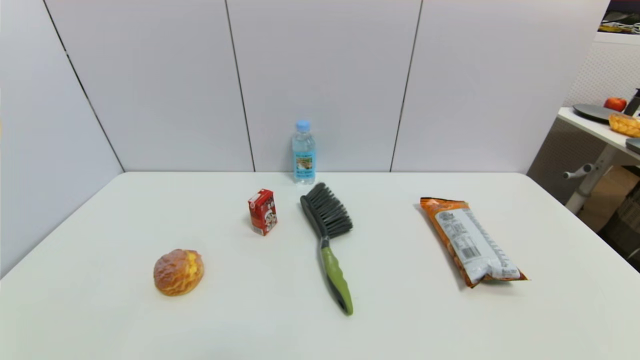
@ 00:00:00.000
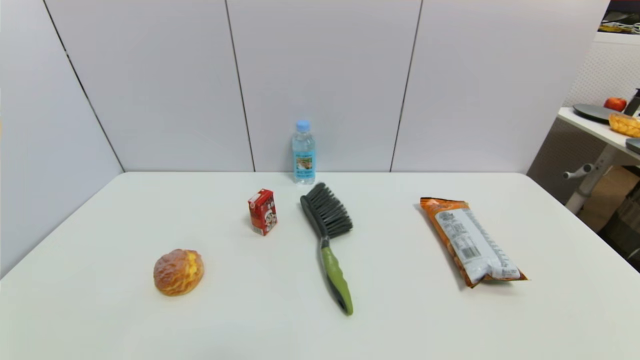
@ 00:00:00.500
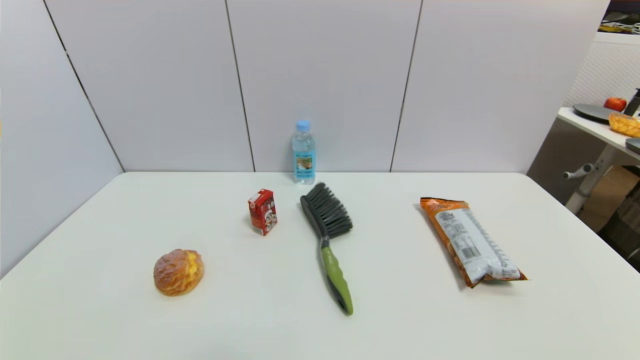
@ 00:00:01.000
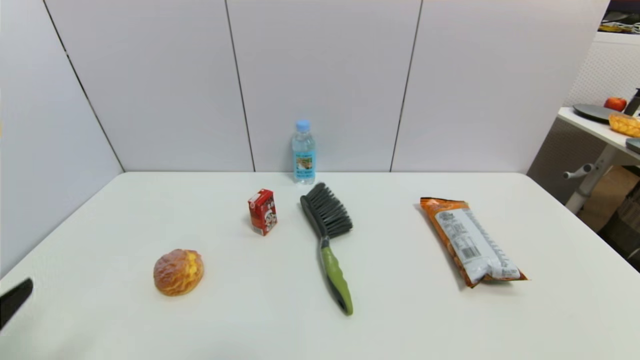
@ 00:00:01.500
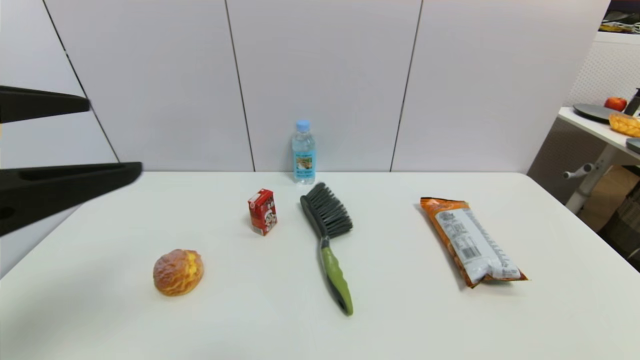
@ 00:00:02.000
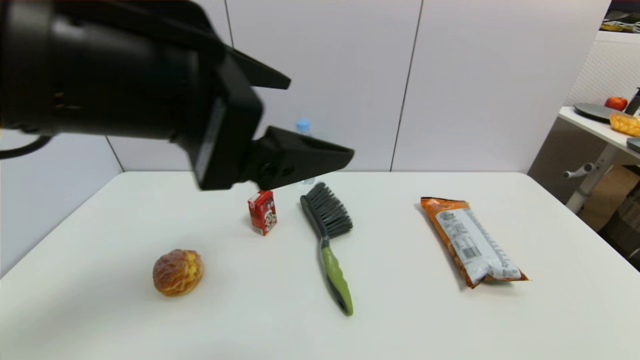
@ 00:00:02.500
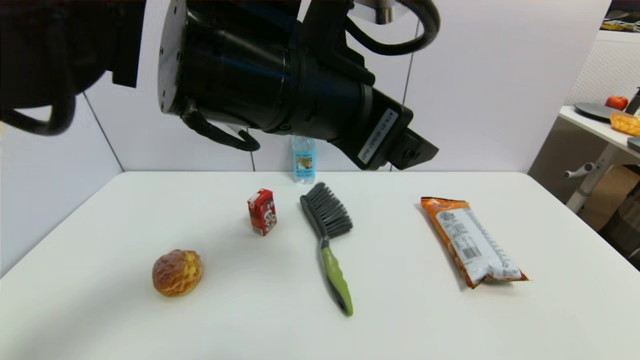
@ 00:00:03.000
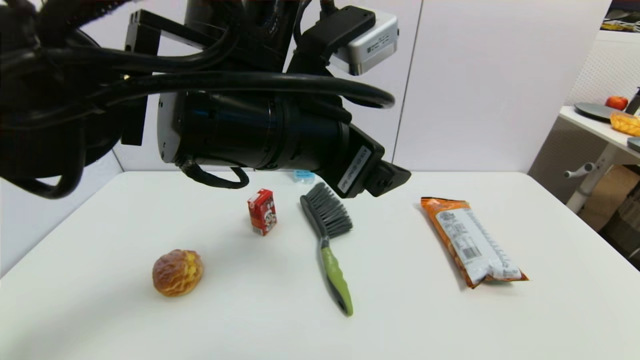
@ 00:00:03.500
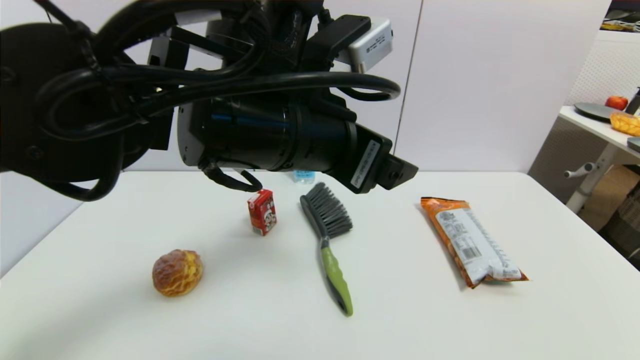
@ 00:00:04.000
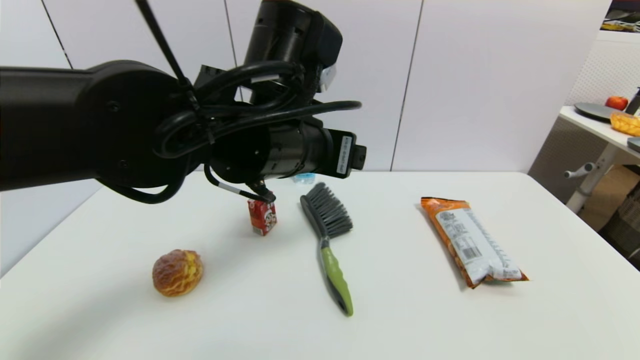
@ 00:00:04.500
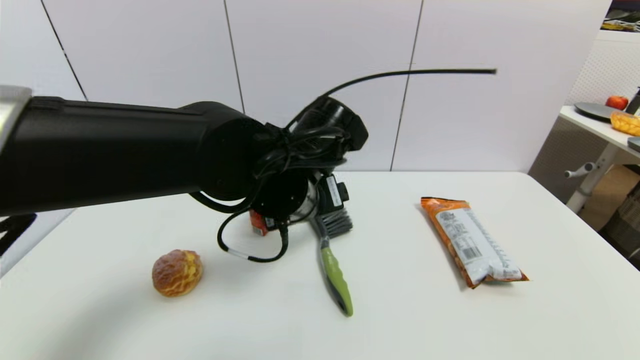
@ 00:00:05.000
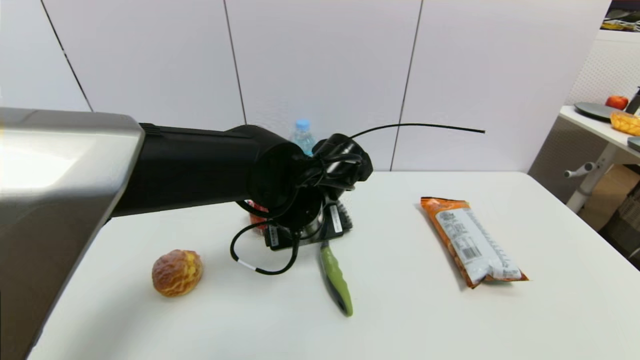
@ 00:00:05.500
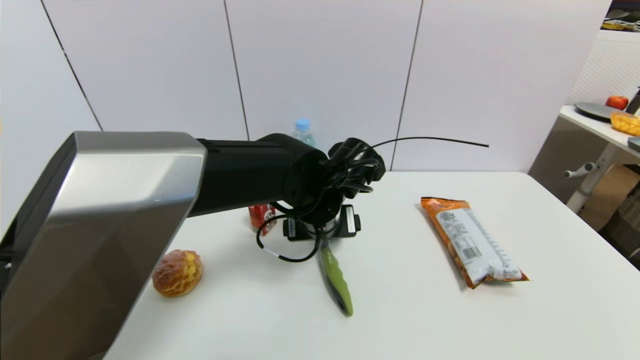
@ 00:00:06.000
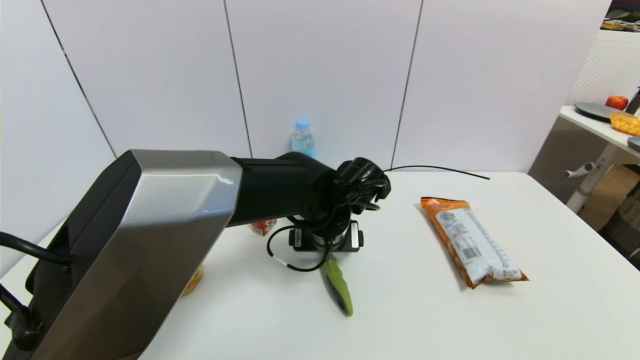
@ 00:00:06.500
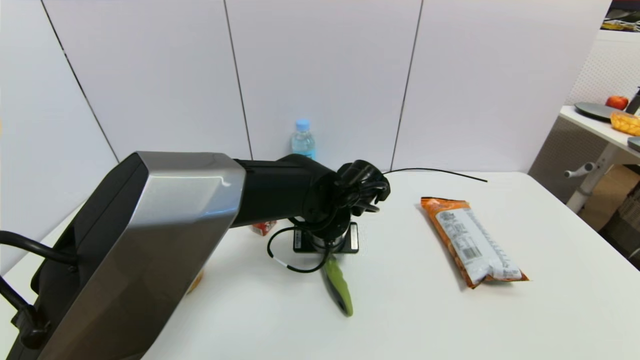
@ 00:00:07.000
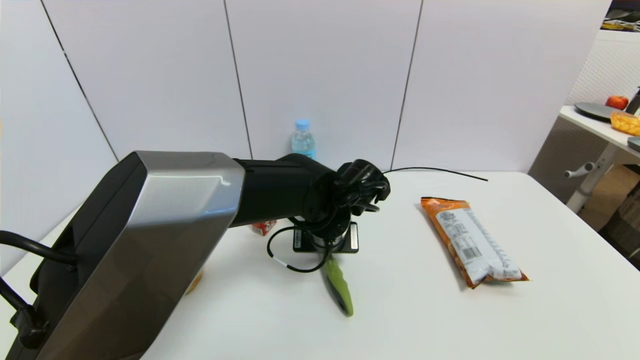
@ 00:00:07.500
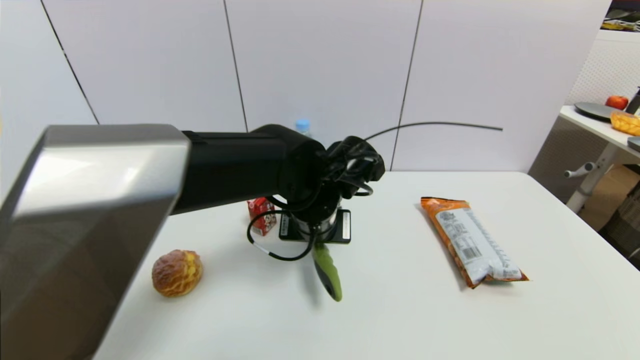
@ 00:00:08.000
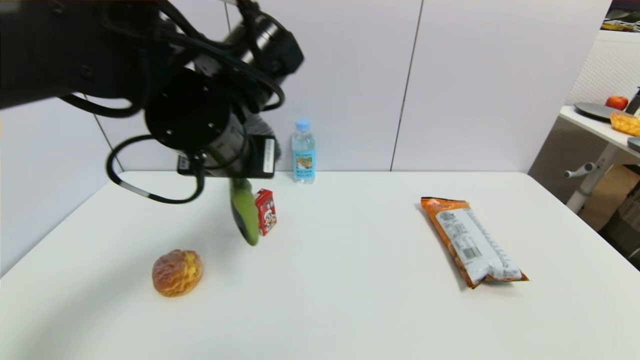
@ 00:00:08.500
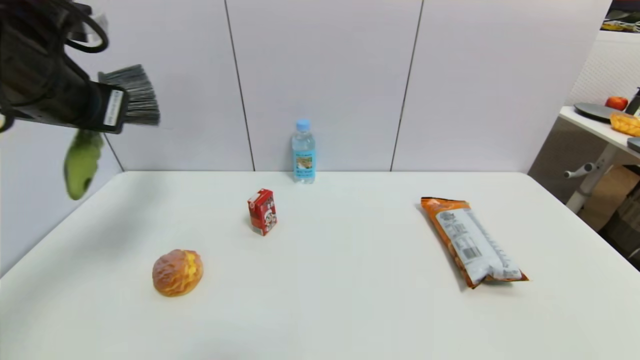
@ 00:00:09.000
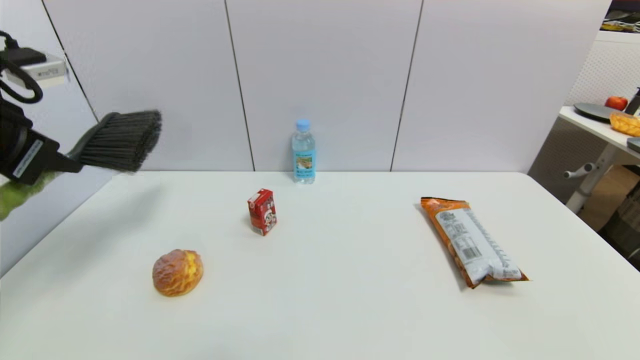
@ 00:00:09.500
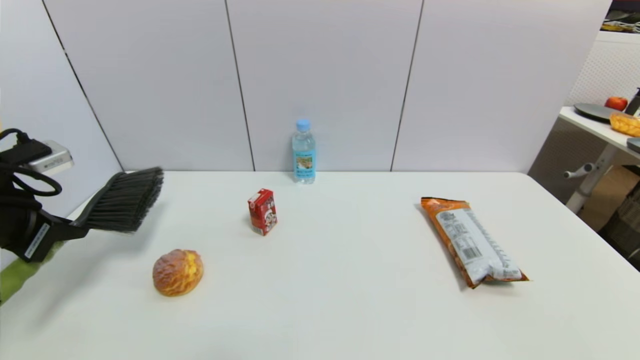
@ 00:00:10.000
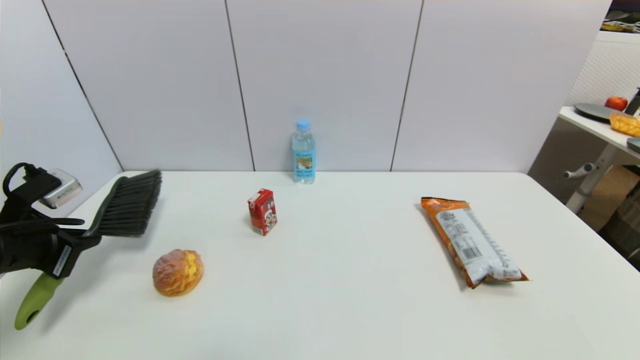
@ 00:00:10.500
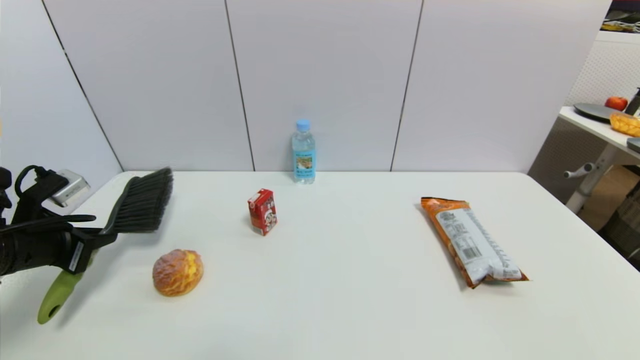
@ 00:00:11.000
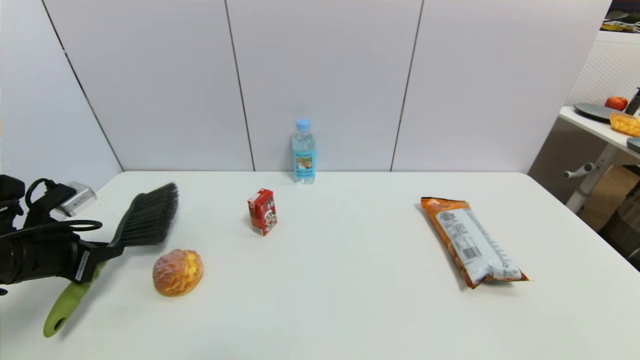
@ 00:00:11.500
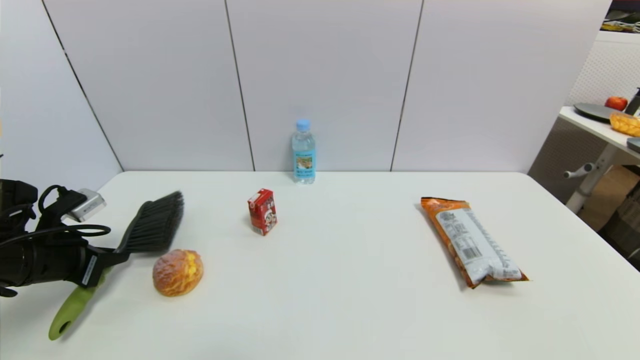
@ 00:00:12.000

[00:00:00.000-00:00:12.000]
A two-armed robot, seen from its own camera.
Task of the whole recording: put the brush in the designated position.
Step, 00:00:01.500 to 00:00:07.500: Grasp the brush with left gripper.
00:00:00.000 to 00:00:02.000: The left gripper goes roughly 30 cm upward and forward.
00:00:02.000 to 00:00:04.000: The left gripper is displaced to the right and forward by roughly 25 cm.
00:00:04.000 to 00:00:06.000: The left gripper heads downward and forward, covering about 15 cm.
00:00:06.000 to 00:00:08.000: The left gripper closes up.
00:00:08.000 to 00:00:10.000: The left gripper heads to the left, covering some 35 cm.
00:00:10.000 to 00:00:12.000: The left gripper shifts roughly 10 cm downward.

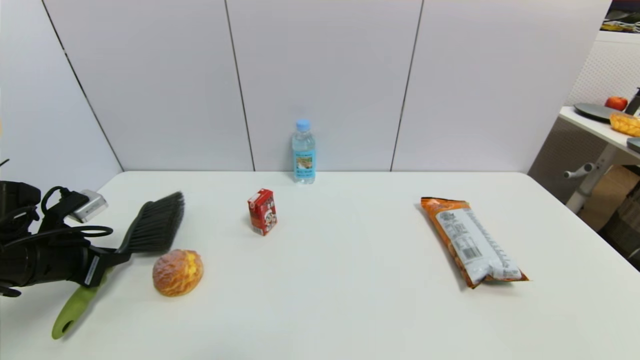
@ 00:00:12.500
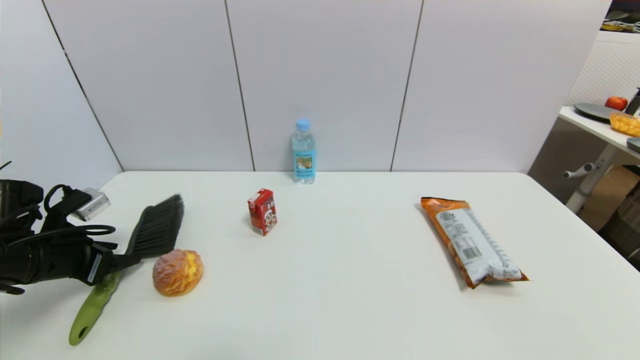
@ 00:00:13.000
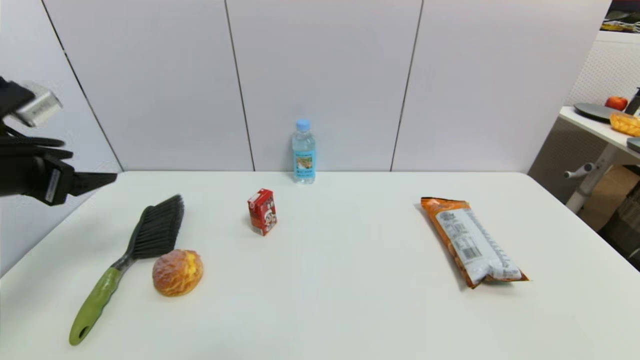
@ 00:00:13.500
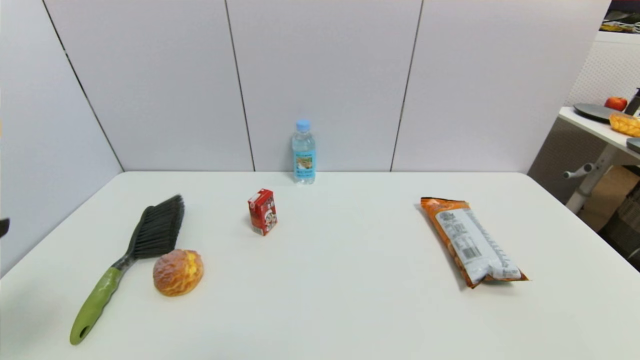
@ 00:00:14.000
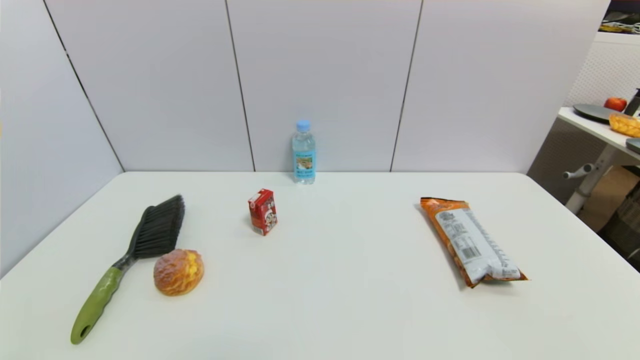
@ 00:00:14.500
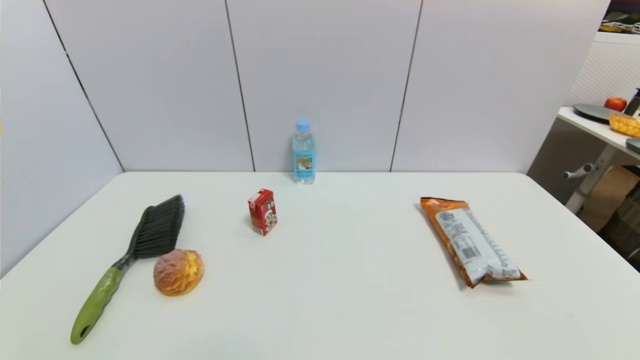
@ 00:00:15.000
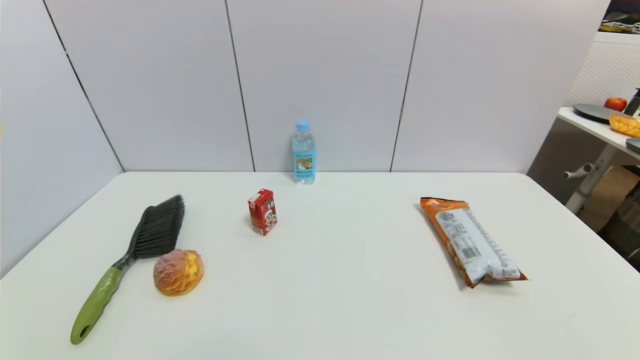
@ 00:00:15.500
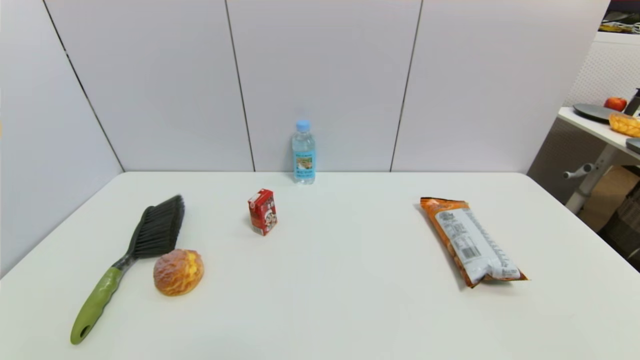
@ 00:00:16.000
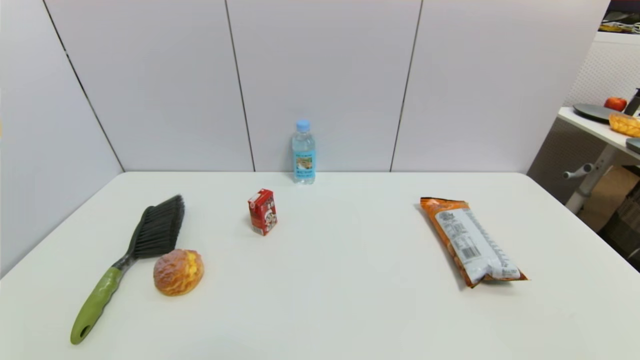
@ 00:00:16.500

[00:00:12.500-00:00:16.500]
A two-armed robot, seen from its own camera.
Task of the whole recording: put the brush in the designated position.
00:00:12.500 to 00:00:14.500: The left gripper heads backward, covering roughly 25 cm, and opens its fingers.

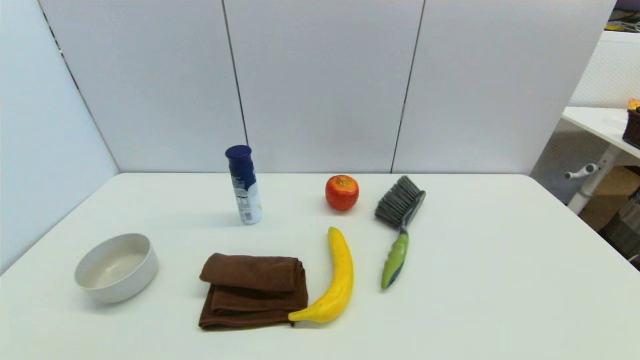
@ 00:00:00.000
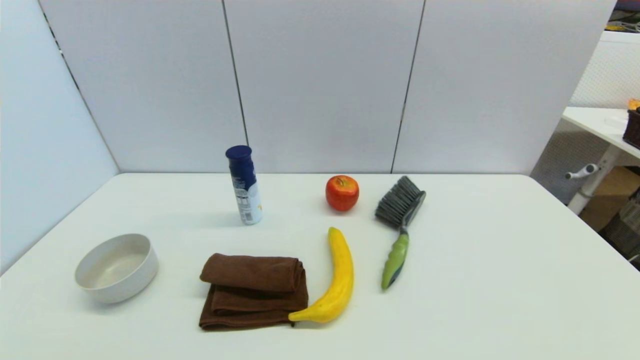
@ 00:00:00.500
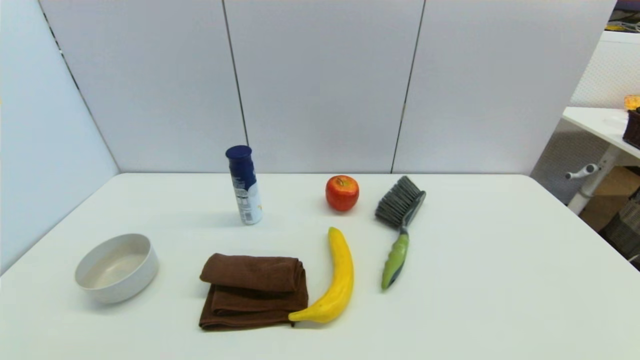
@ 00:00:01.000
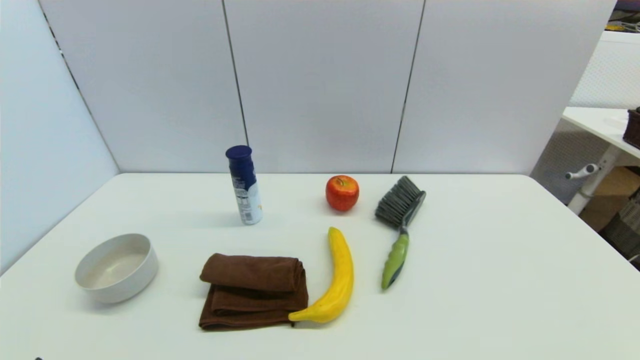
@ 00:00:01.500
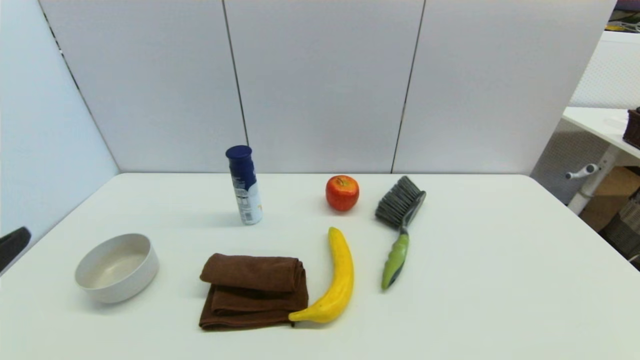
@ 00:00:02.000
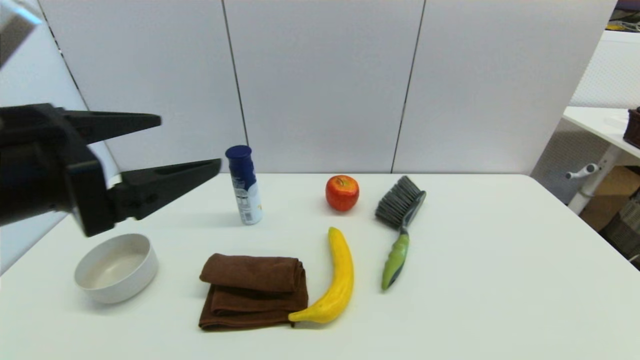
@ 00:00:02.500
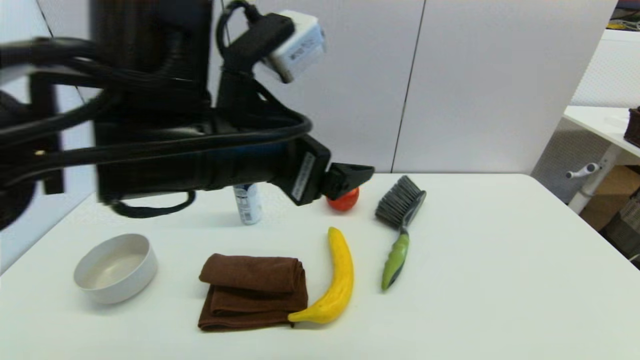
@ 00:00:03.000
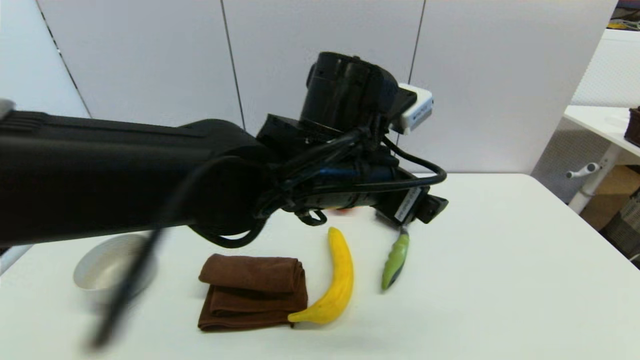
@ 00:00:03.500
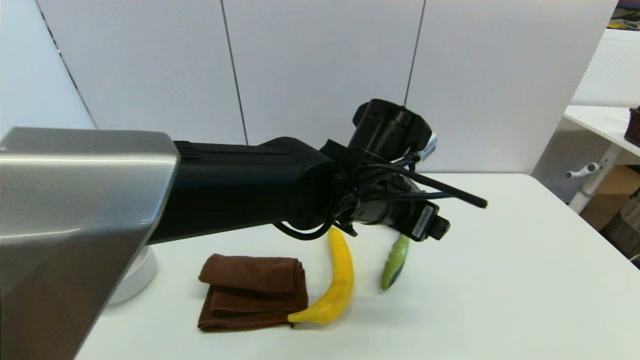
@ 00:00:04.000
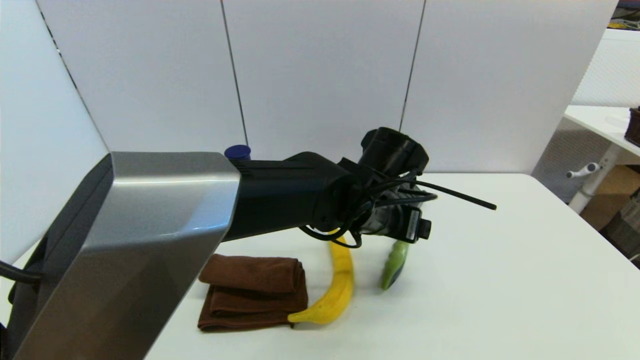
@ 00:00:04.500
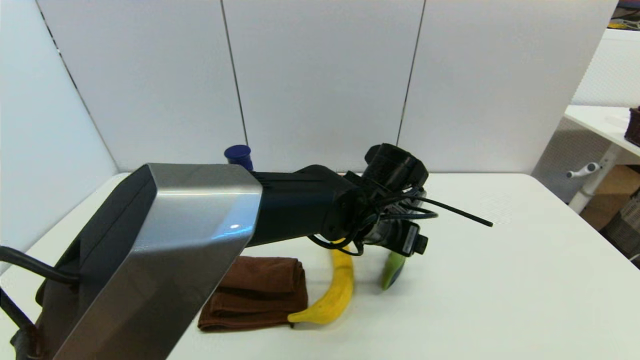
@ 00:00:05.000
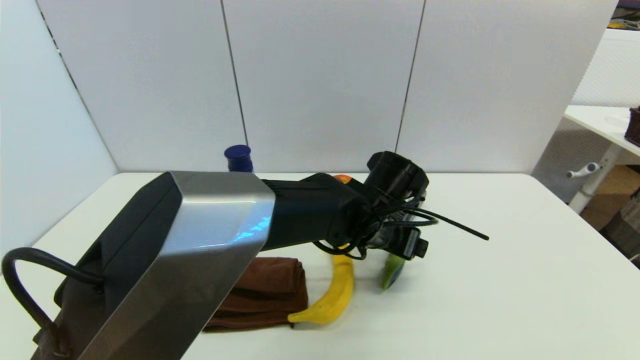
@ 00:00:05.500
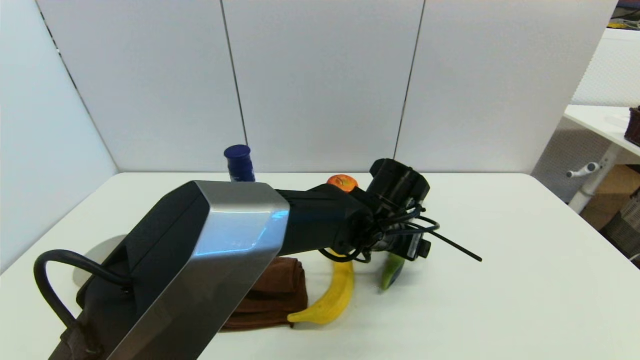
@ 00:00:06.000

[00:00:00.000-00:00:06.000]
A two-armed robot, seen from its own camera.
Task of the whole recording: put the brush in the designated position.
00:00:02.000 to 00:00:04.000: The left gripper shifts some 40 cm to the right and forward.
00:00:04.000 to 00:00:06.000: The left gripper shifts roughly 10 cm downward.
